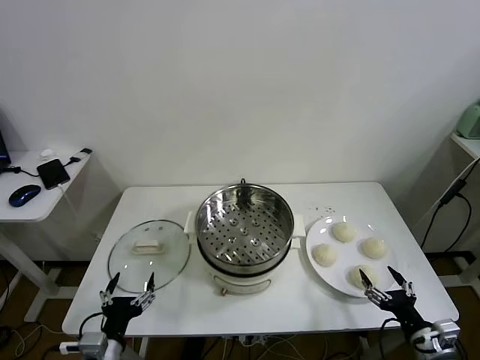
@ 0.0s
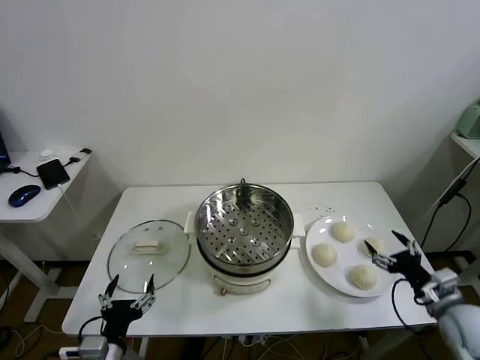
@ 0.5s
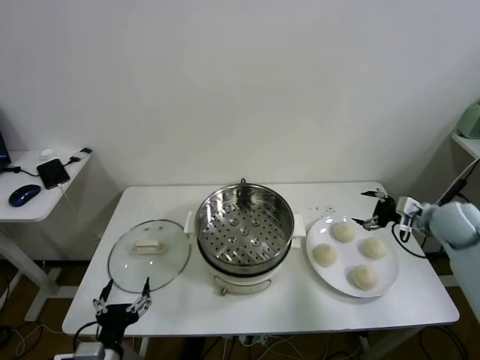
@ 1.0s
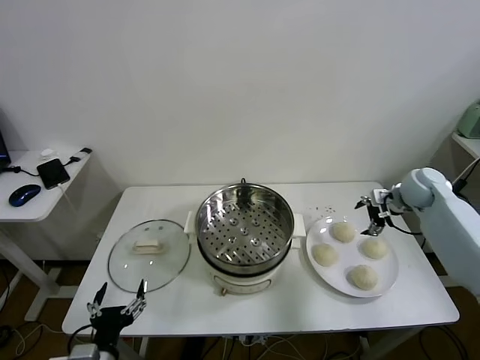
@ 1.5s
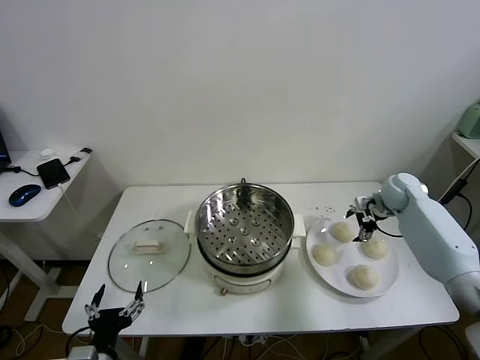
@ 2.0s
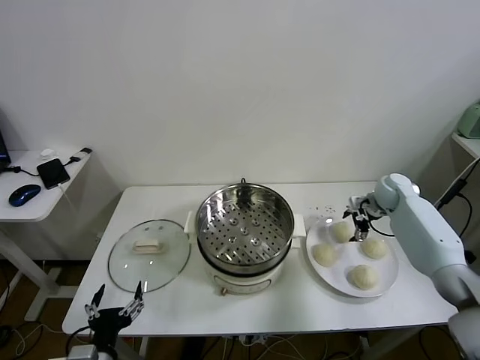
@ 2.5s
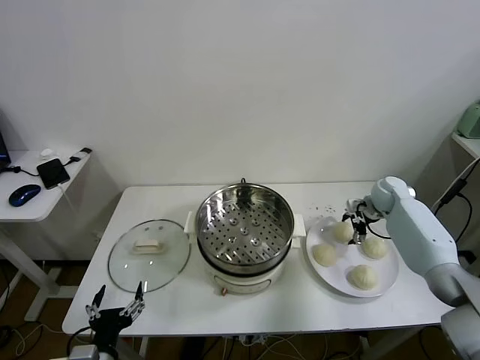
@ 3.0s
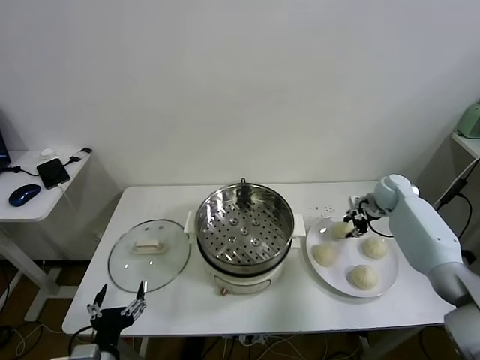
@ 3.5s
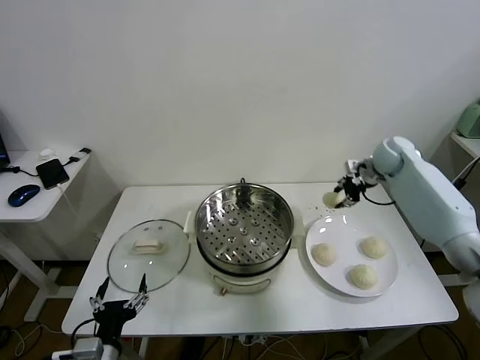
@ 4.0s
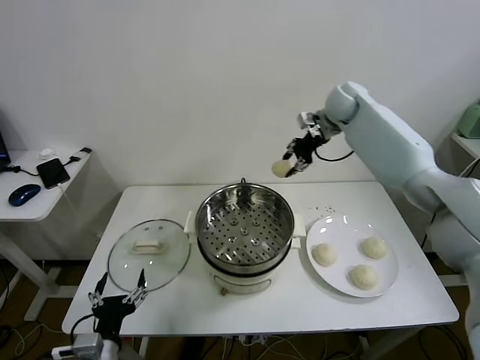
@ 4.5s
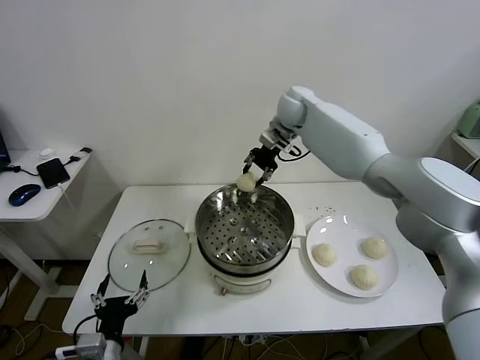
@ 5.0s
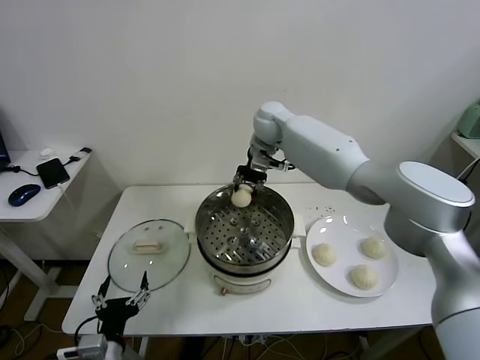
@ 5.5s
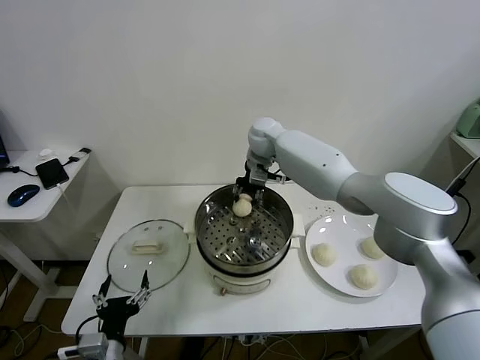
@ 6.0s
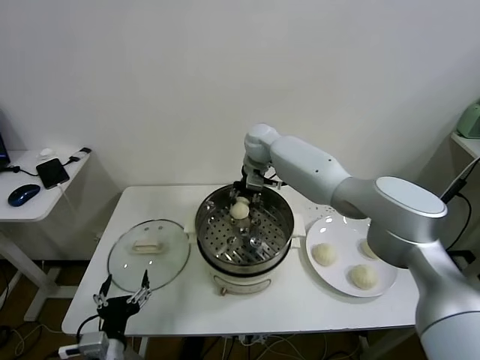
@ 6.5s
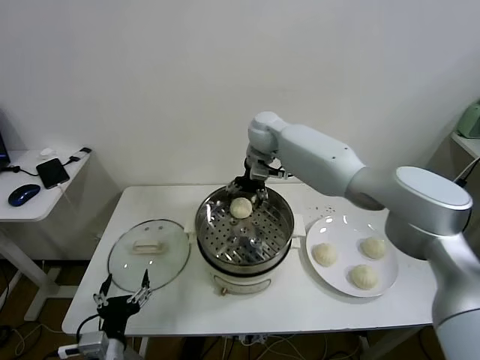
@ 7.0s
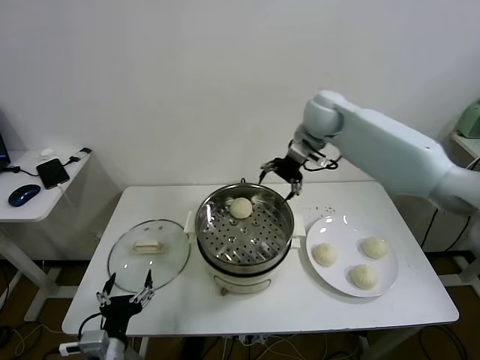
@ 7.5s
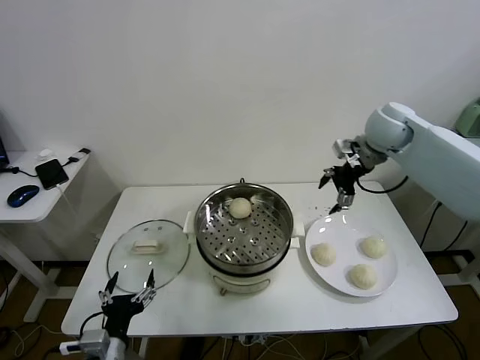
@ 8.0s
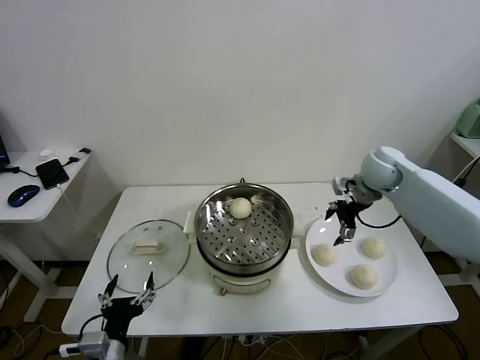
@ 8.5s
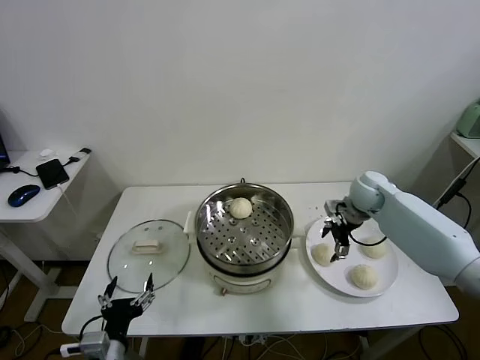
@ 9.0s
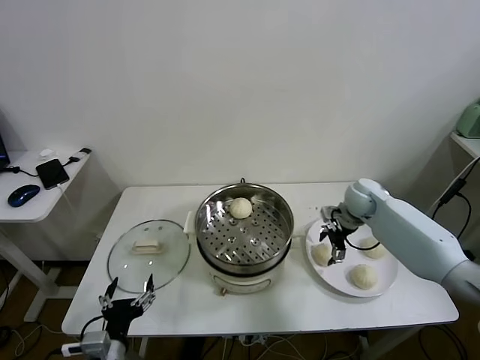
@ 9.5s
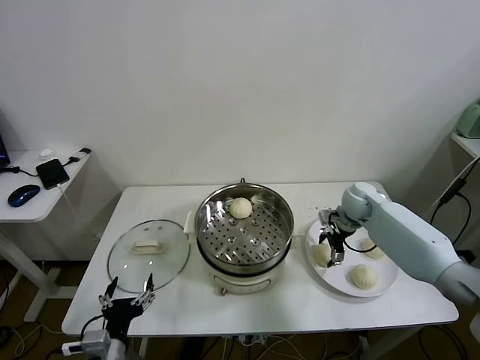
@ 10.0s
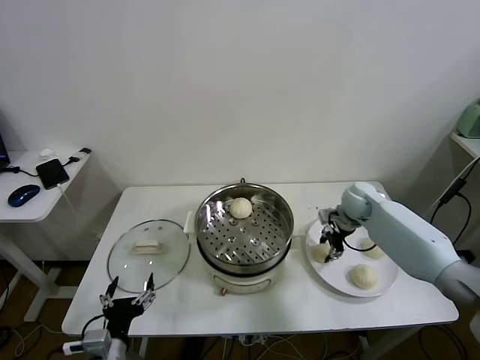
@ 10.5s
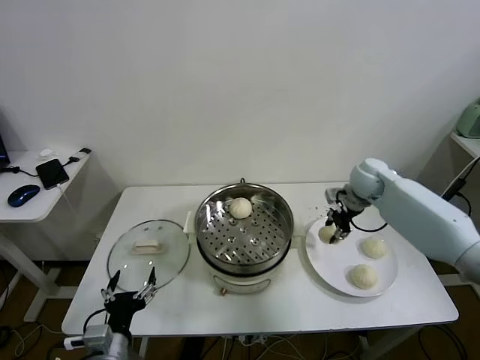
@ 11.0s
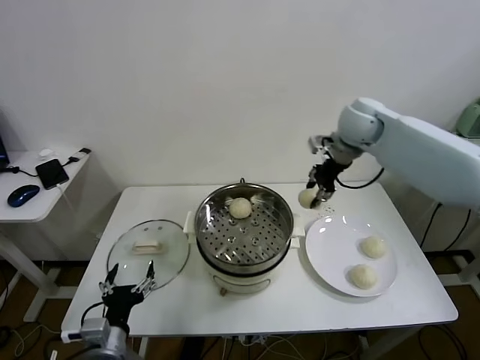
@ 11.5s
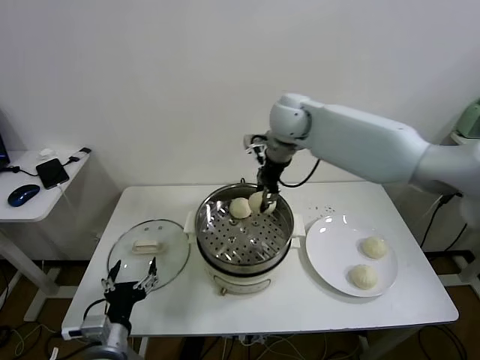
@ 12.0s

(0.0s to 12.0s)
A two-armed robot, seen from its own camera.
Task of the whole recording: take steamed baozi put them in steamer.
Step, 0.0s - 3.0s: Grasp the baozi in the plate with right gripper.
Step, 3.5s - 6.5s: Place the baozi on the steamer with right gripper.
Step, 7.0s - 10.5s: Grasp the baozi in the plate with right gripper.
2.0s - 4.0s: The right gripper heads upward and to the left, covering about 15 cm, and closes up.
4.0s - 6.0s: The right gripper travels to the left by approximately 30 cm.
6.0s - 8.0s: The right gripper goes some 25 cm to the right, and opens.
8.0s - 10.0s: The right gripper goes some 20 cm downward.
10.0s - 12.0s: The right gripper goes some 35 cm upward and to the left, and closes.

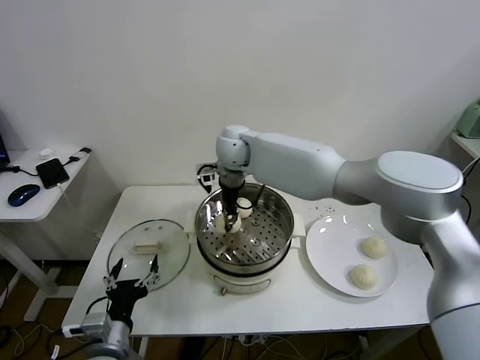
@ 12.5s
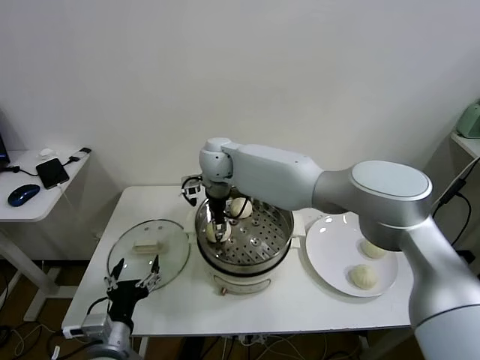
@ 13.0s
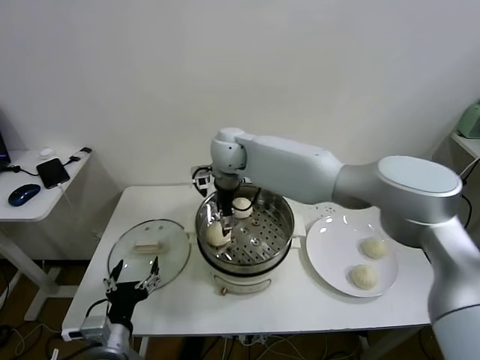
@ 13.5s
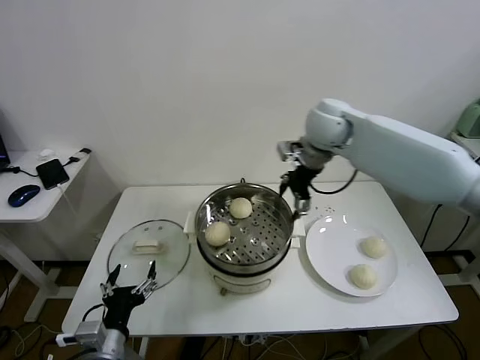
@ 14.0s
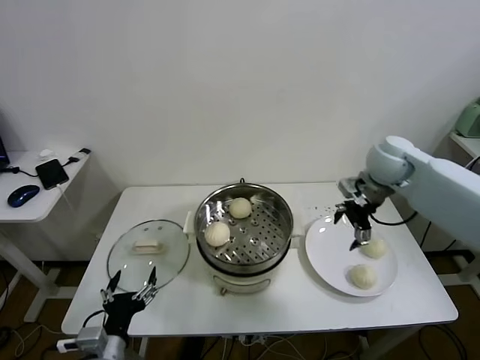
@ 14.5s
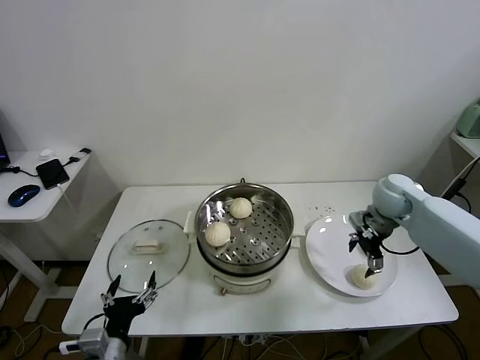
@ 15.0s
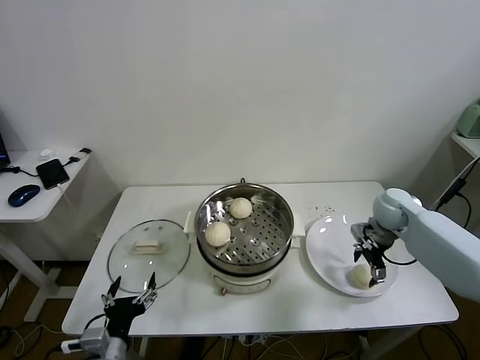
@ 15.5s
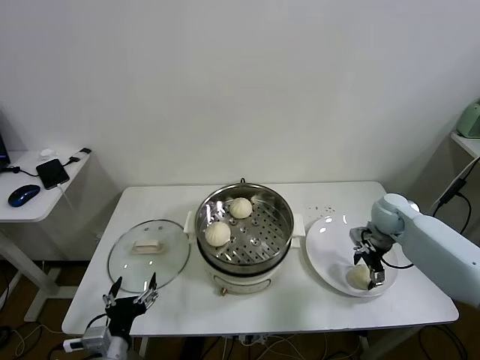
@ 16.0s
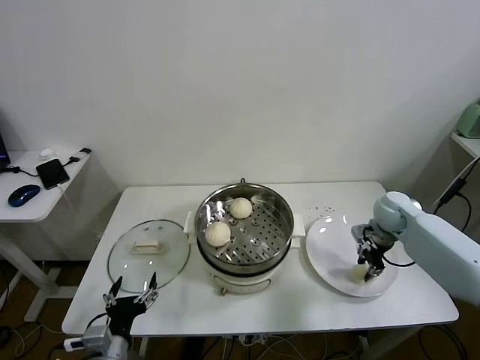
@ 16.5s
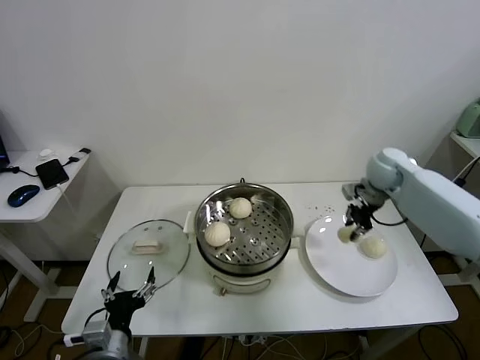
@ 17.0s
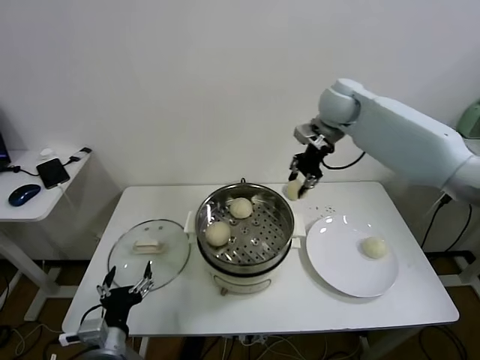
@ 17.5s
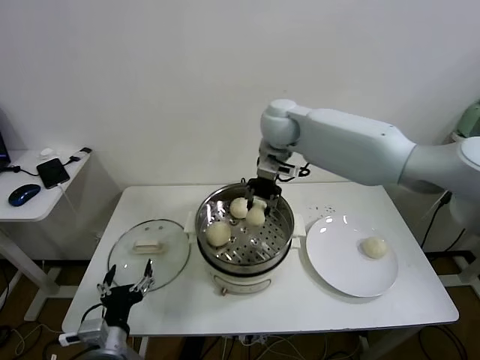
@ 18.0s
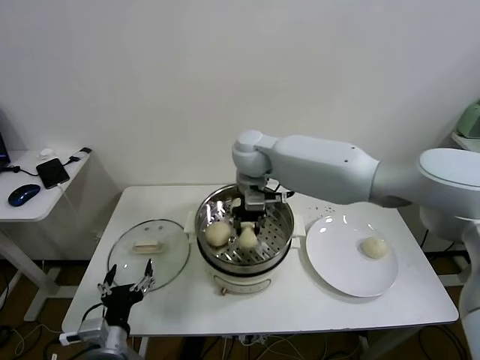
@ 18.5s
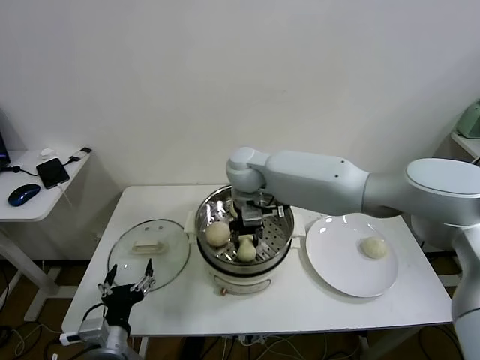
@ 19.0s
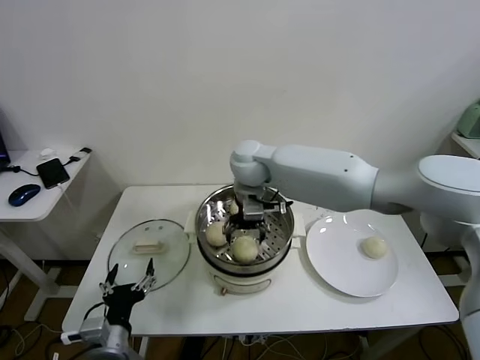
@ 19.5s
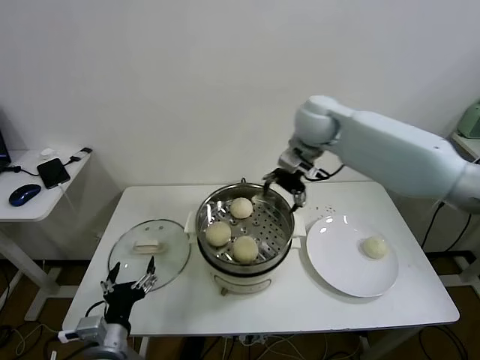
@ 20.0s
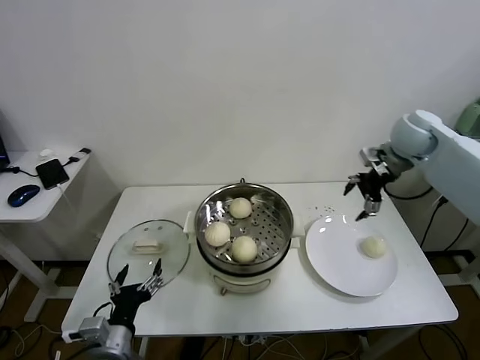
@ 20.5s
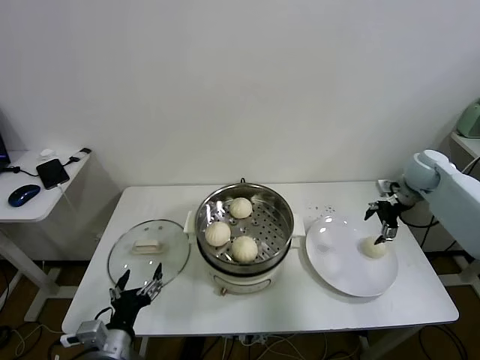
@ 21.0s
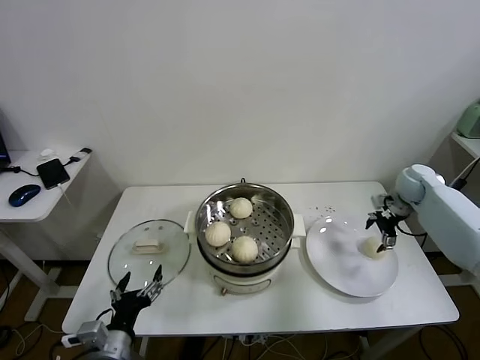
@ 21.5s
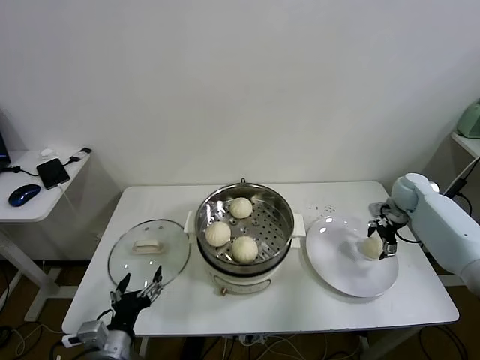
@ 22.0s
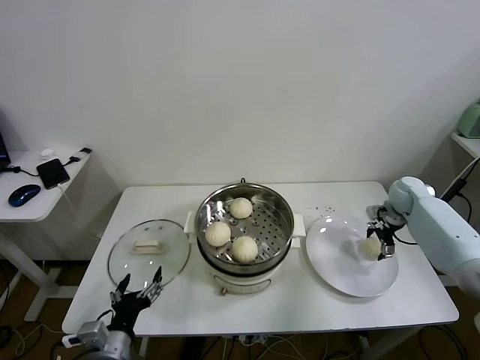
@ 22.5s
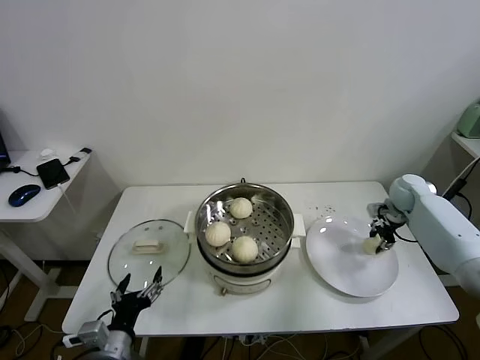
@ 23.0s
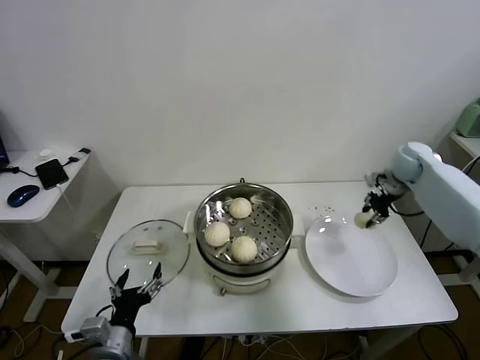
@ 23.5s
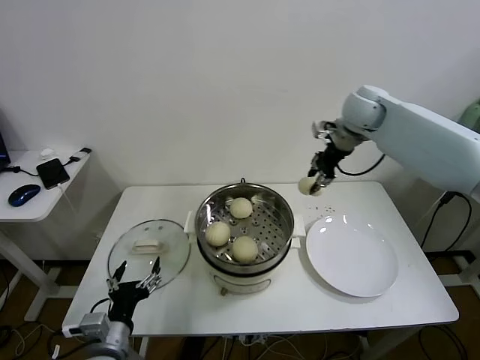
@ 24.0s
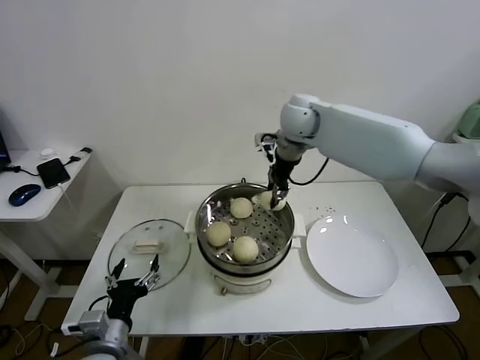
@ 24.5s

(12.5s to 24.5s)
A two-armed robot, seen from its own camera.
Task of the whole recording: take steamed baozi put them in steamer.
Step, 13.5s - 16.0s: Grasp the baozi in the plate with right gripper.
Step, 16.5s - 19.5s: Place the baozi on the steamer with right gripper.
Step, 20.0s - 23.0s: Grasp the baozi in the plate with right gripper.
12.5s - 14.5s: The right gripper is displaced to the right by approximately 35 cm, and opens up.
14.5s - 16.5s: The right gripper shifts approximately 15 cm downward and to the right, and closes.
16.5s - 18.5s: The right gripper moves to the left and upward, approximately 40 cm.
18.5s - 20.5s: The right gripper goes roughly 35 cm to the right, and opens.
20.5s - 22.5s: The right gripper moves downward, roughly 20 cm.
22.5s - 24.5s: The right gripper goes approximately 40 cm to the left and upward, and closes.

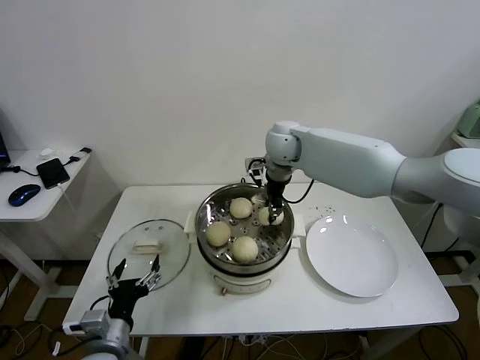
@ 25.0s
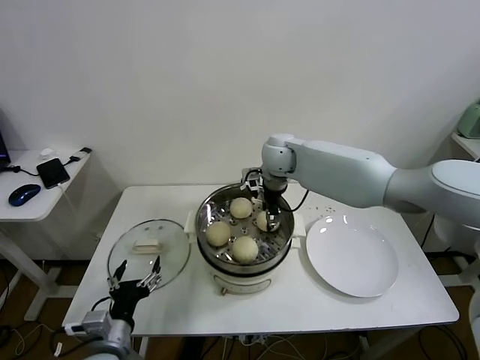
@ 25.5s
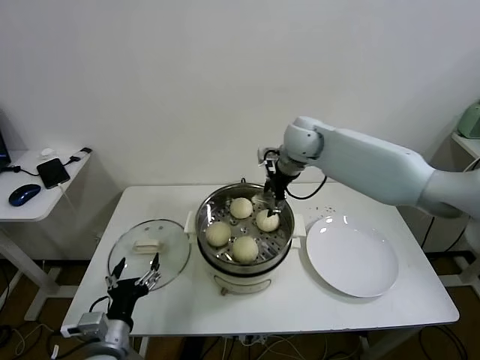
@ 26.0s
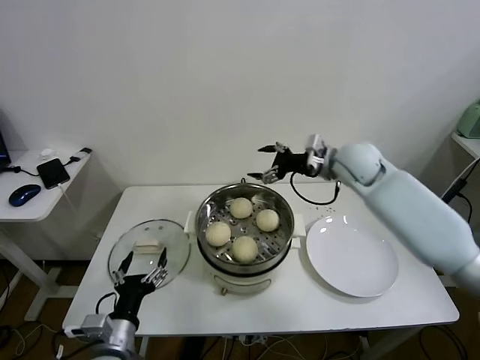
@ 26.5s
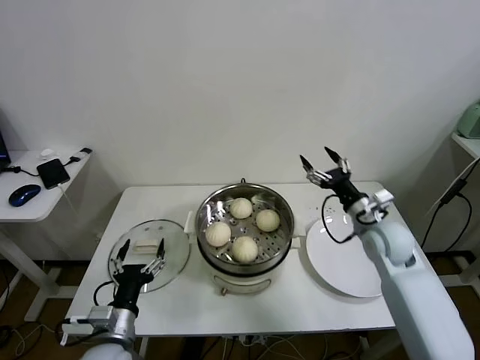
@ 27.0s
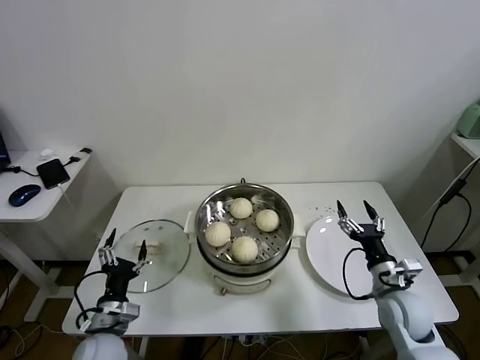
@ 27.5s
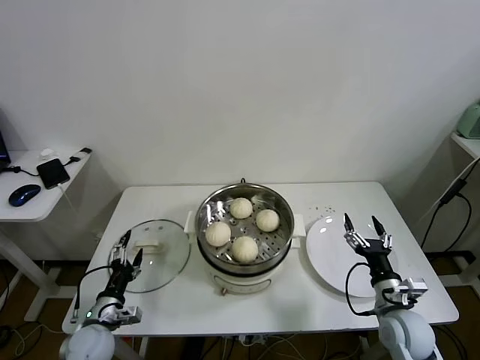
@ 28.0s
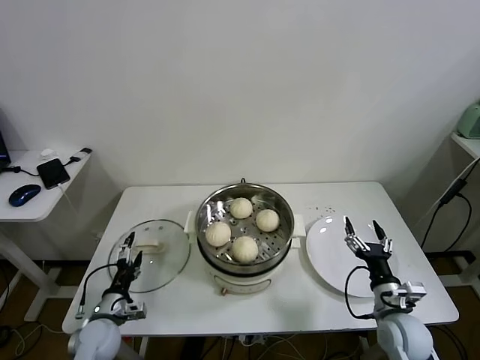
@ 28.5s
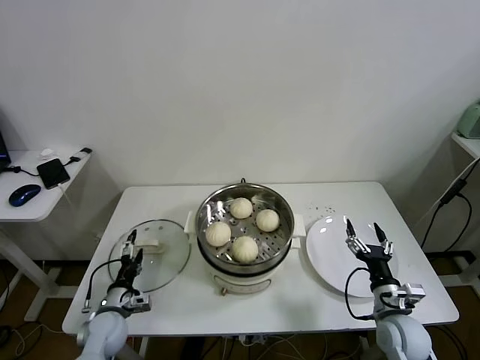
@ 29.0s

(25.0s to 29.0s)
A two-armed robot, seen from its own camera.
Task of the whole recording: take steamed baozi put them in steamer.
25.0s - 27.0s: The right gripper moves to the right, backward and downward, approximately 30 cm, and opens its fingers.
27.0s - 29.0s: The left gripper travels downward, forward and to the left by about 15 cm. The right gripper heads backward and downward, covering some 20 cm.
